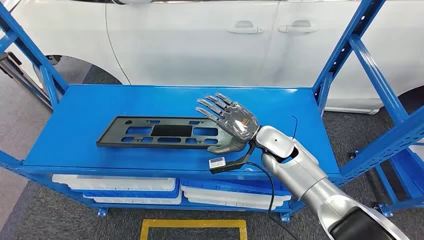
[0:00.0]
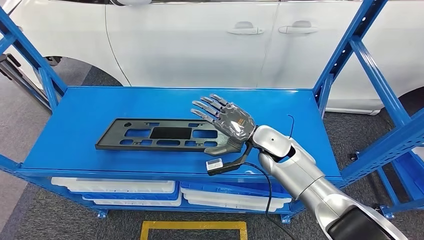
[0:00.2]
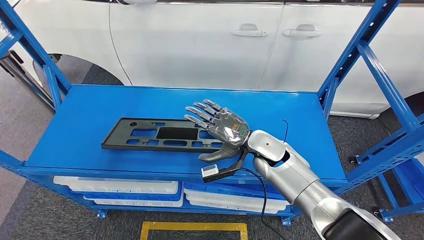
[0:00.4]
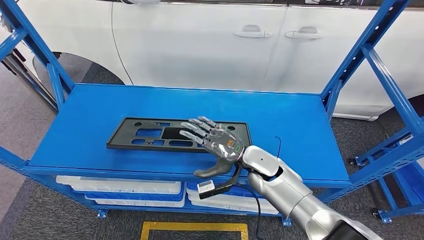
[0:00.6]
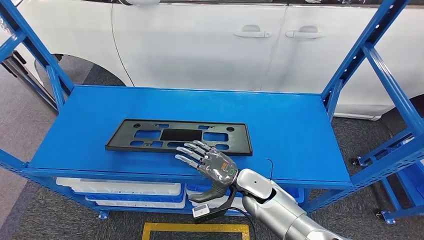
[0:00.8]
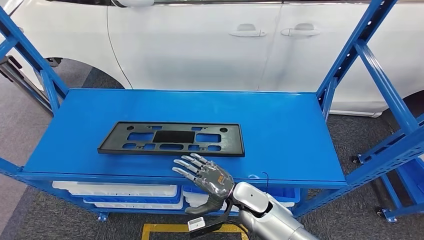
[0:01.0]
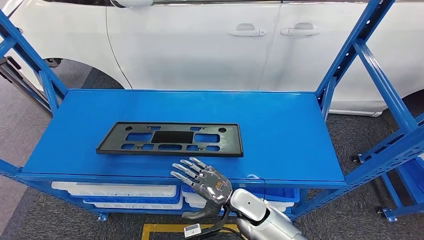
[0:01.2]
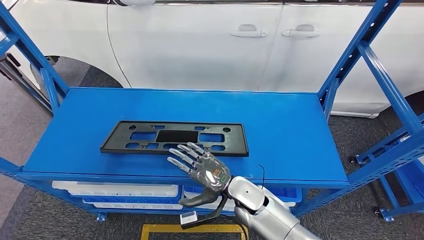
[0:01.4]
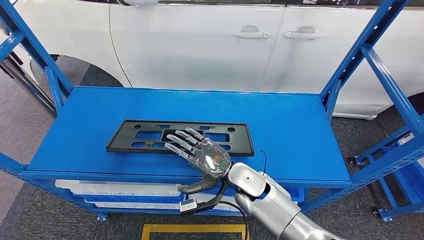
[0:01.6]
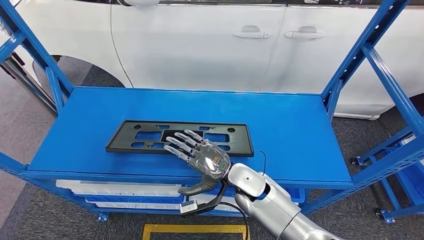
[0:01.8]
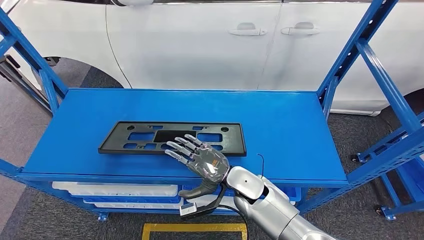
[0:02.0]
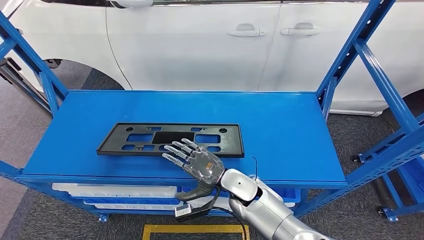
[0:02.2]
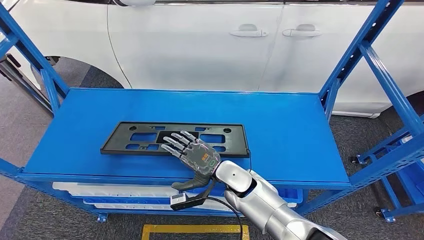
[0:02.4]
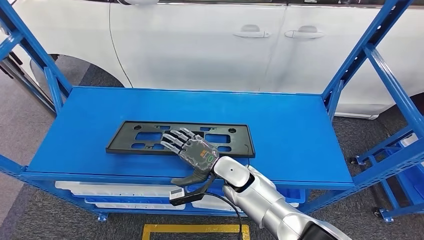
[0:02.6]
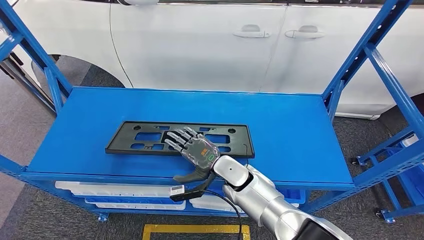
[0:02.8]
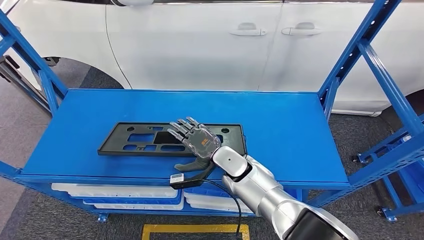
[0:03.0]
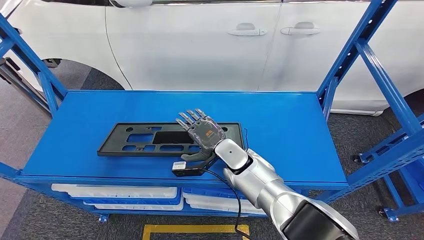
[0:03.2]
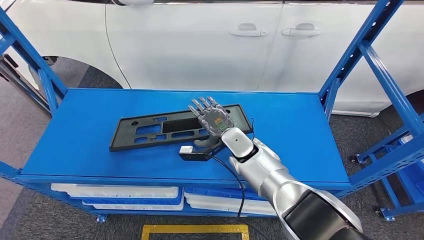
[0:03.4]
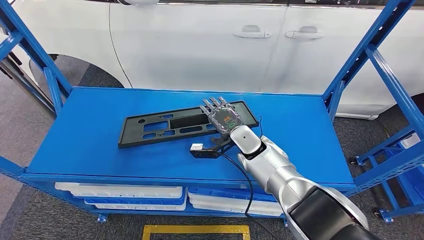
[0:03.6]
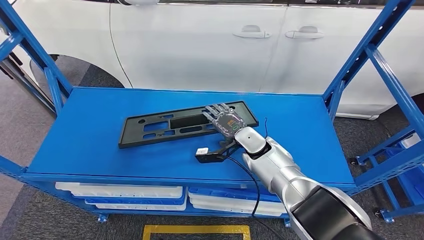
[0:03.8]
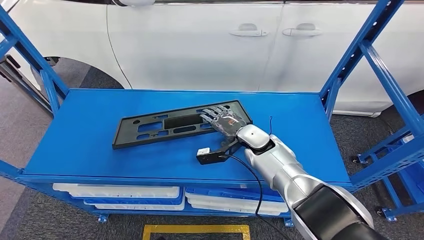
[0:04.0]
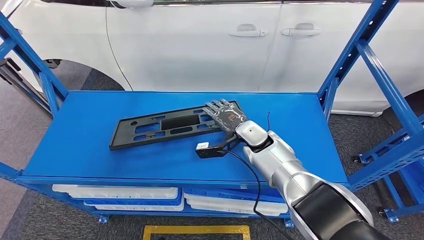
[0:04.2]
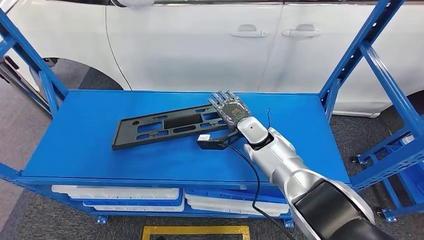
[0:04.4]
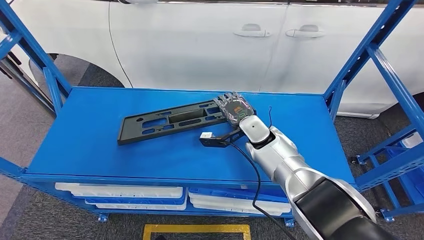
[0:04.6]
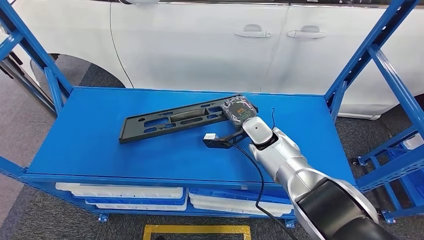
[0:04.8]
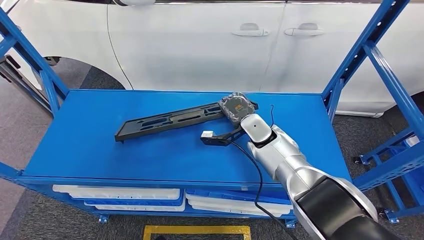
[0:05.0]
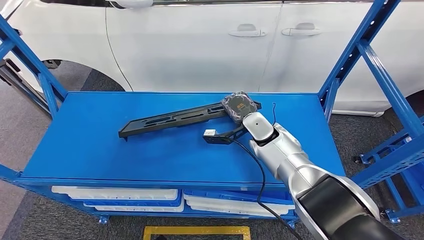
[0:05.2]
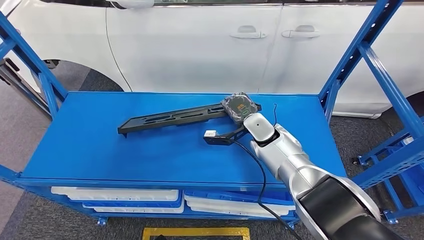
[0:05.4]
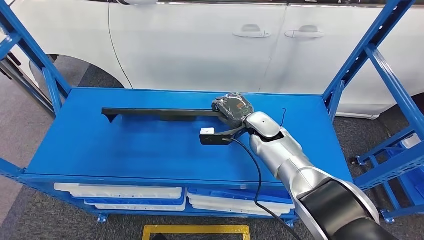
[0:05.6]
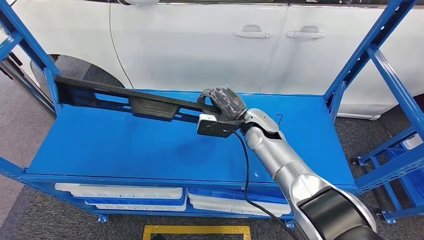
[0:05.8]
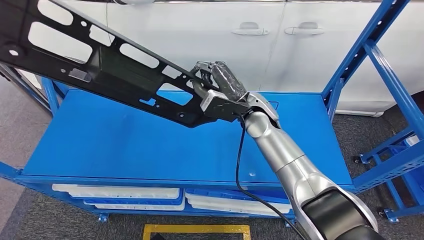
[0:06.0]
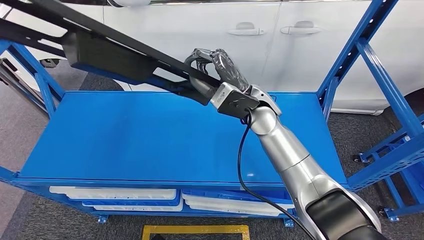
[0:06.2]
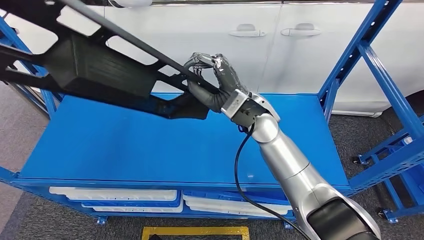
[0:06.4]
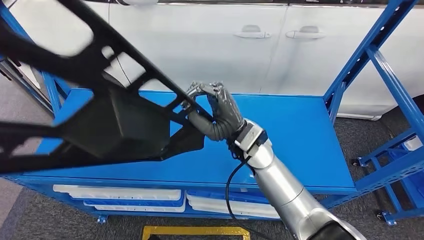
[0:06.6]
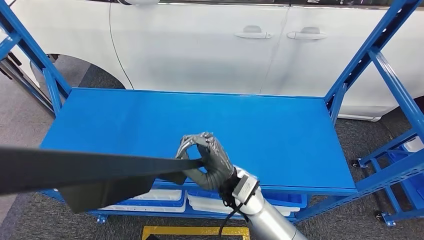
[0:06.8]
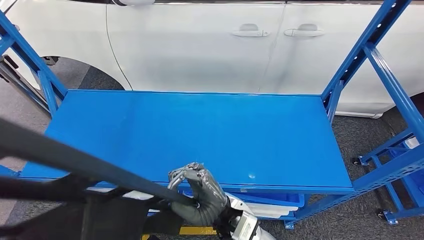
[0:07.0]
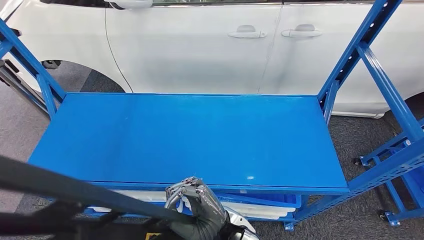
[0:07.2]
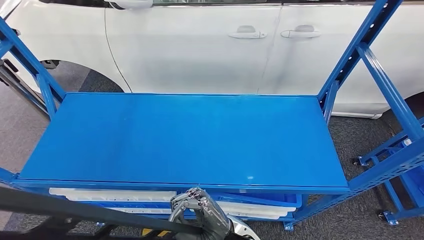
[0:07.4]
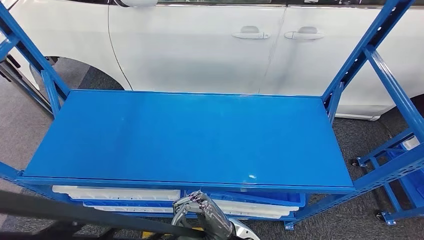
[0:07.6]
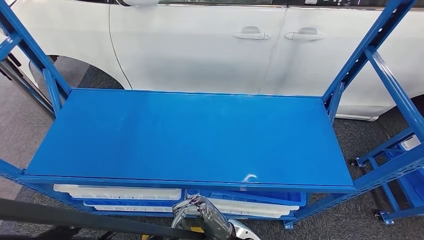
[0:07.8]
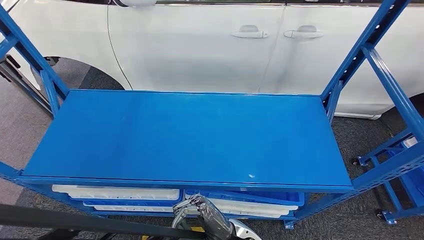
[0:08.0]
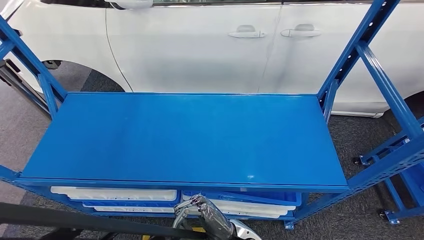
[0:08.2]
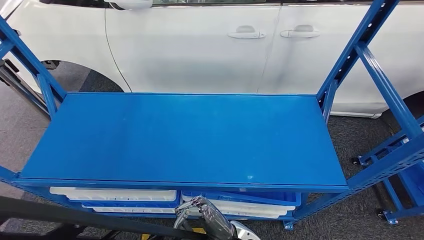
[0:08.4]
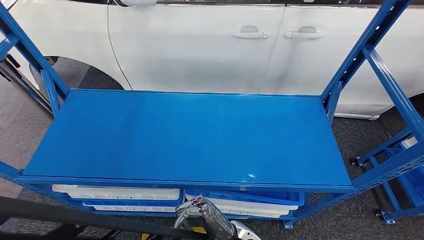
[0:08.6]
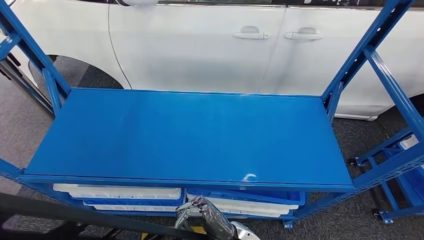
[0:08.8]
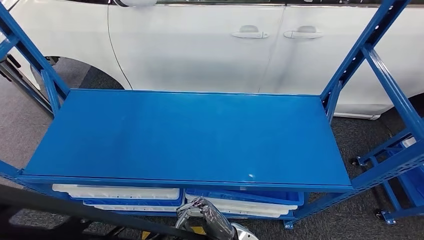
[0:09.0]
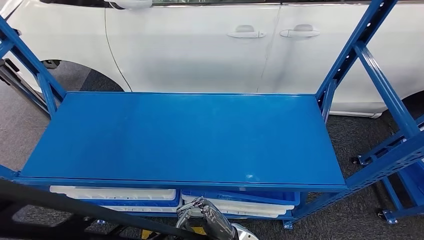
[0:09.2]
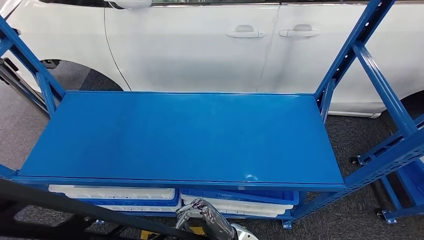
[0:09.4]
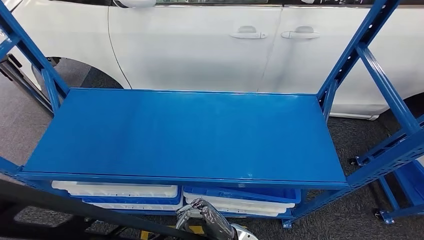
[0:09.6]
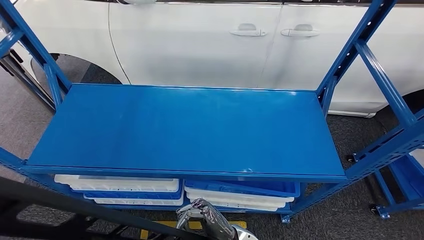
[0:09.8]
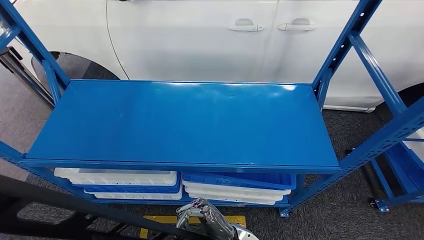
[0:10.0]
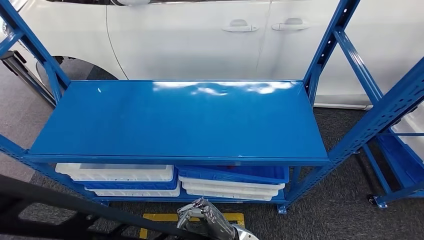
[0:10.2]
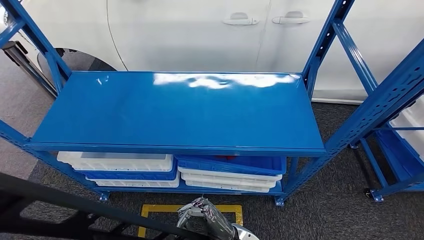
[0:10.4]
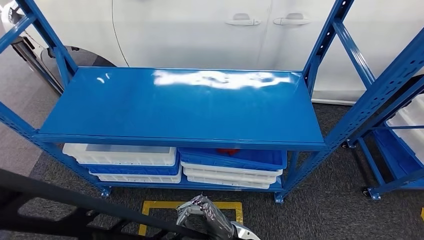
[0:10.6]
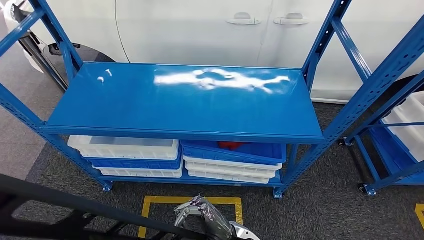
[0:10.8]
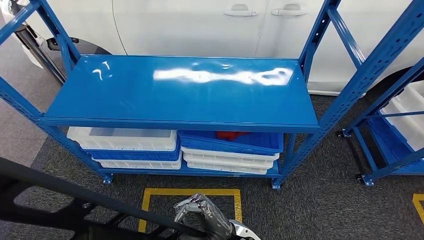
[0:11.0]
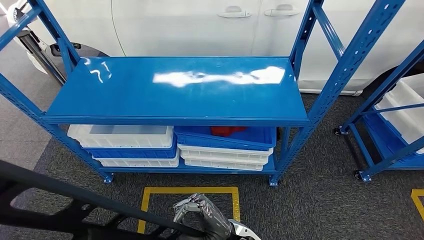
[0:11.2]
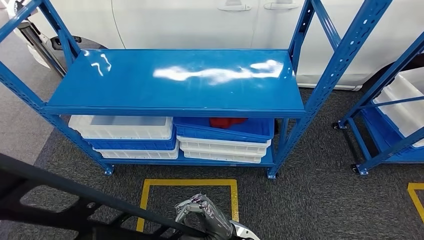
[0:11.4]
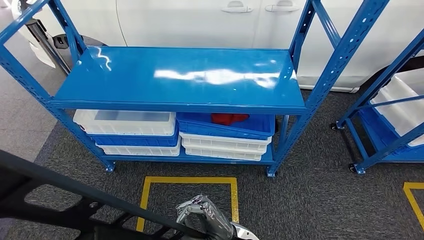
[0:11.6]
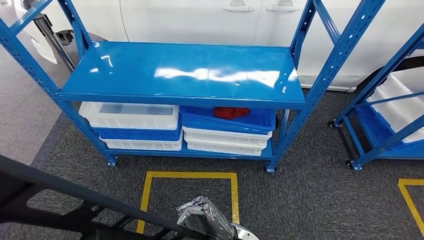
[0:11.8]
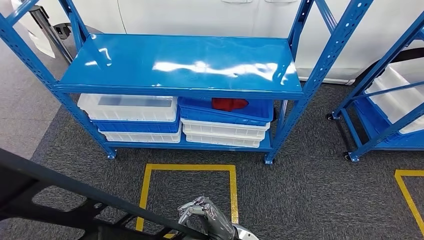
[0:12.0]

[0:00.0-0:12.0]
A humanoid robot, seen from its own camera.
Step, 0:00.0 to 0:07.2: Pick up the large material from the shelf.
0:07.6 to 0:09.0: There are only small adjustments of the hands.

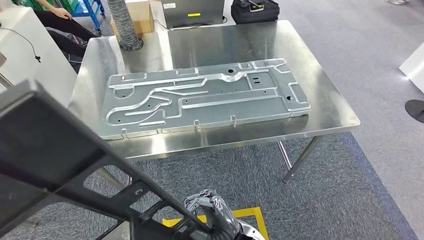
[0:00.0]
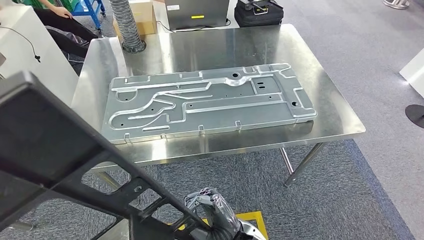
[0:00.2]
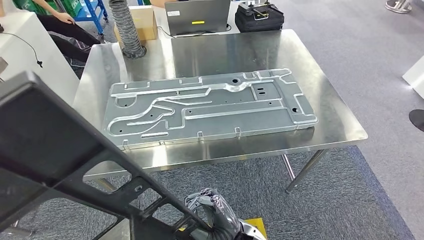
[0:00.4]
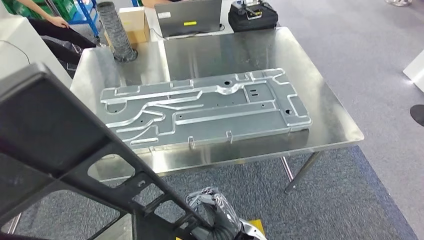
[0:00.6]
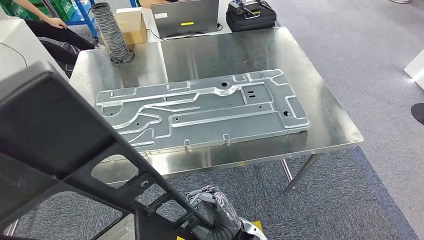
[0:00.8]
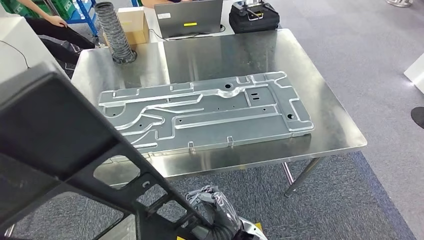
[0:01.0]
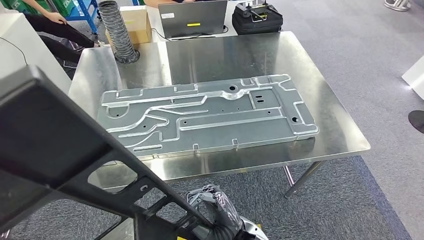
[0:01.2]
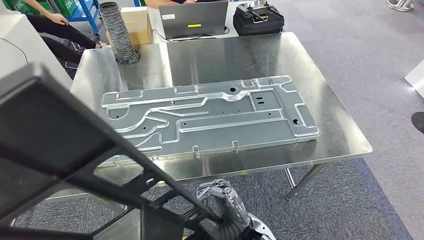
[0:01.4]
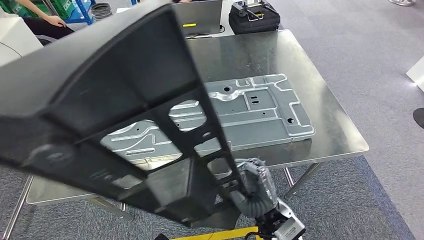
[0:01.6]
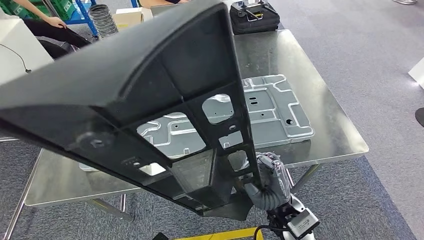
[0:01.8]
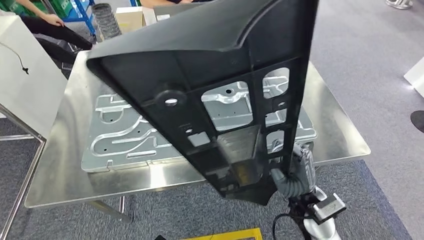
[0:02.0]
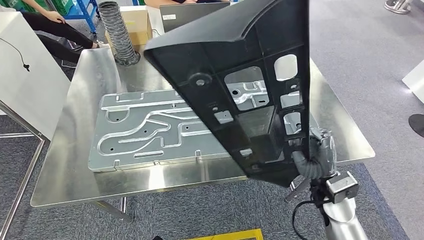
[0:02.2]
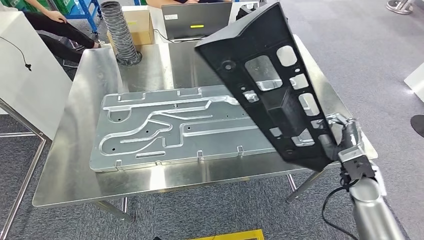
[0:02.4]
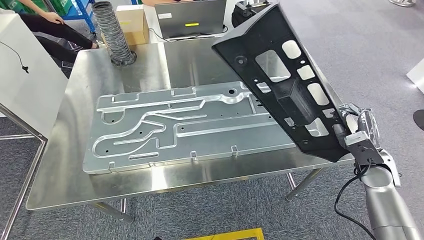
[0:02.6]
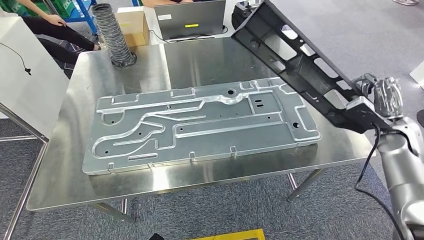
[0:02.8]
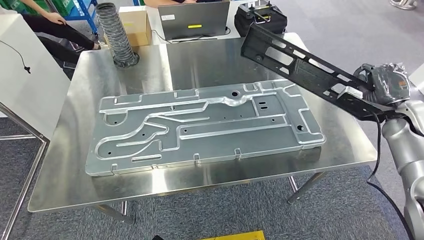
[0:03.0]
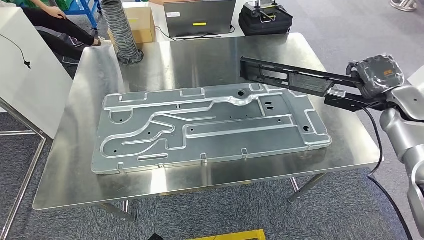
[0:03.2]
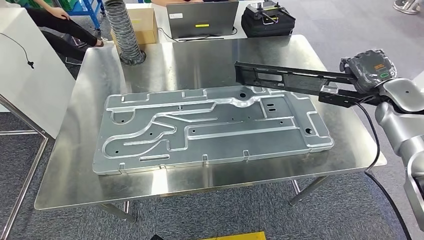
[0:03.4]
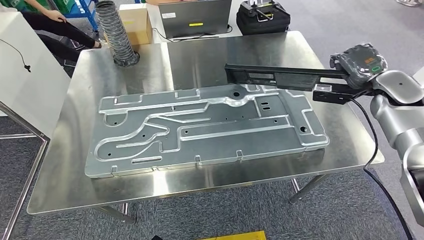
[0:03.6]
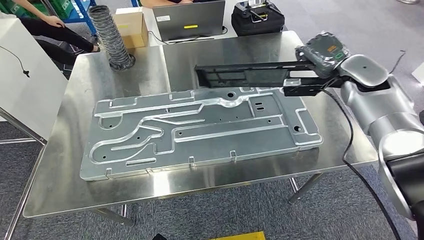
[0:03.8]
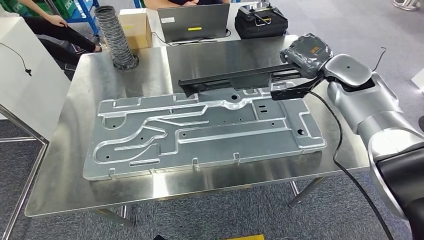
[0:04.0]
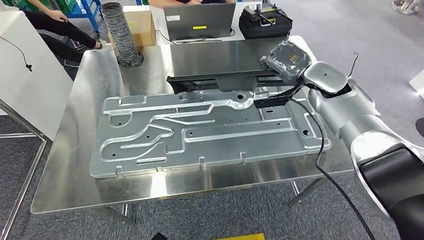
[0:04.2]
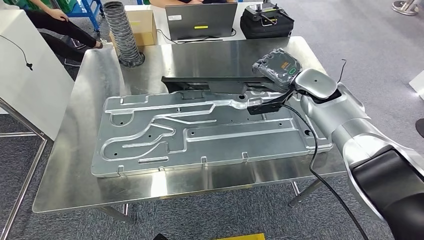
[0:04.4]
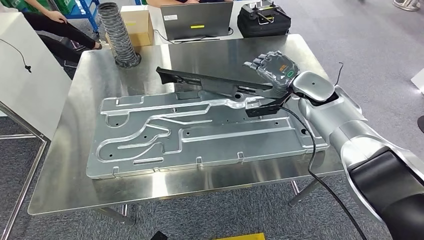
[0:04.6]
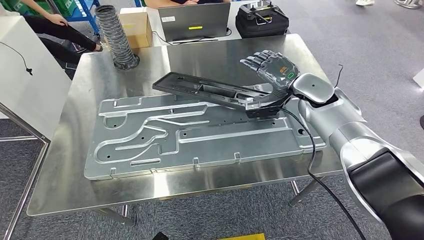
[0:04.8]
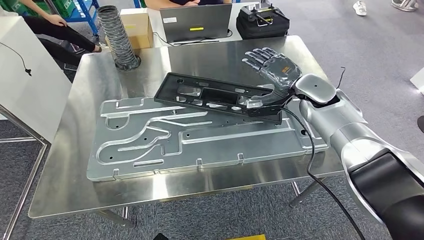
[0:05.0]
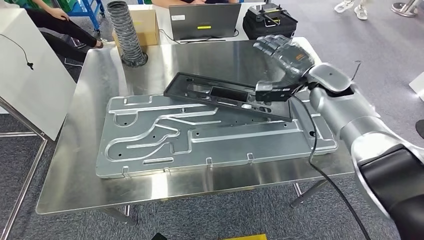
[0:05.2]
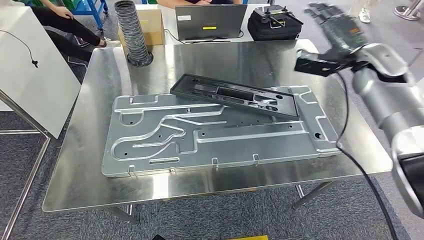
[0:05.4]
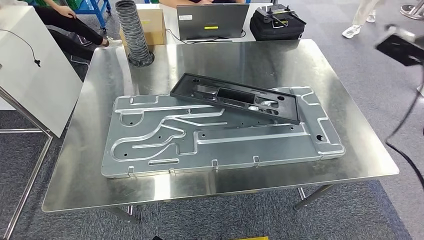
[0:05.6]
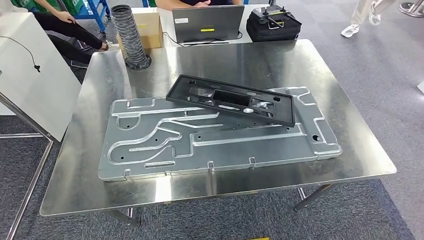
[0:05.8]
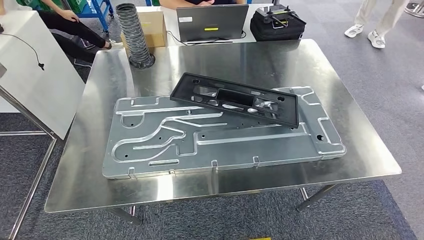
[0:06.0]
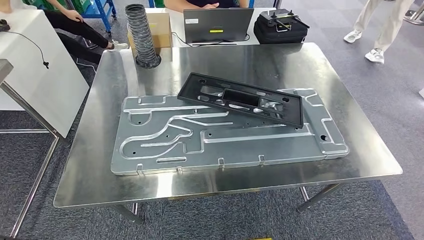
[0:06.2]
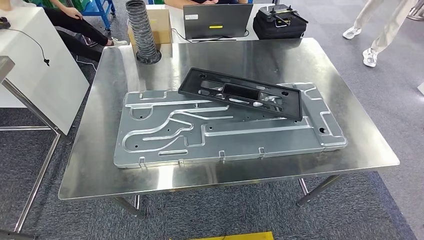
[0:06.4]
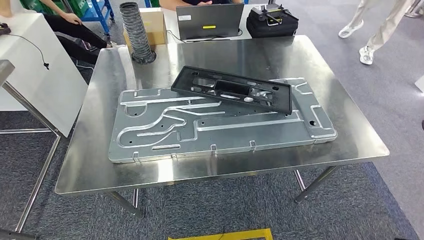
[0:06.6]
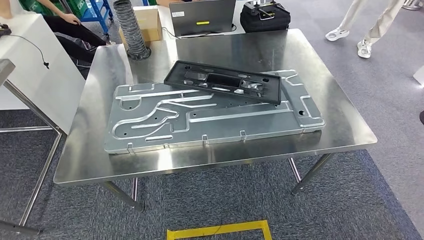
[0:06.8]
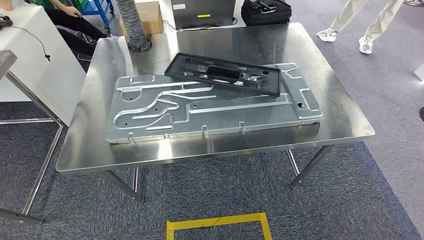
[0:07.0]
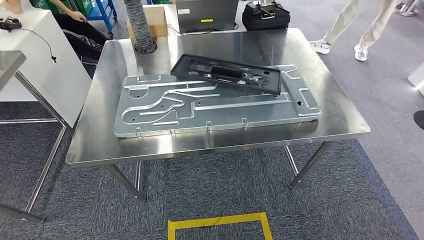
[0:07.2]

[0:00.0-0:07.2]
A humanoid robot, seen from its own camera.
Step, 0:00.8 to 0:06.4: Insert the large material into the corresponding slot on the workbench.
